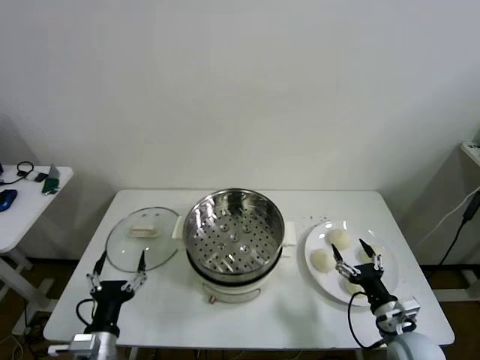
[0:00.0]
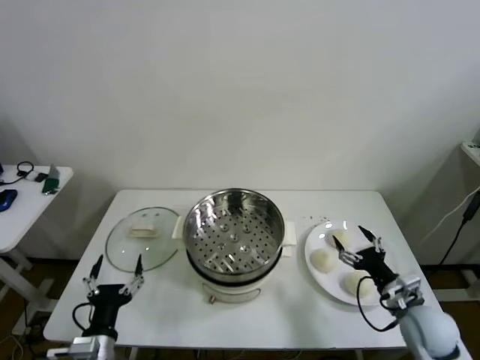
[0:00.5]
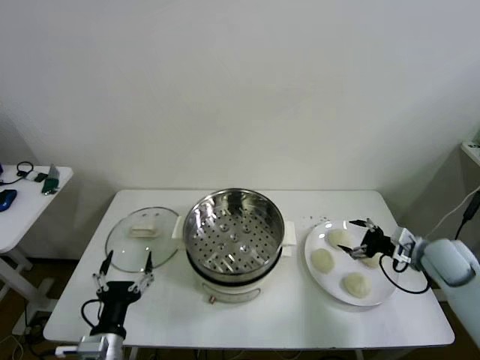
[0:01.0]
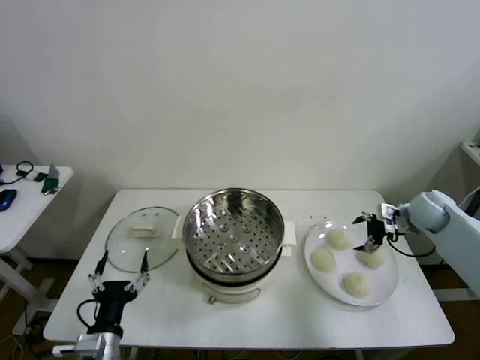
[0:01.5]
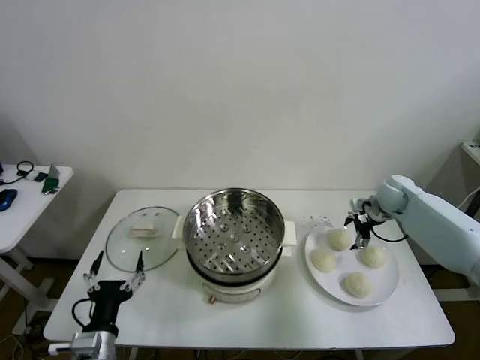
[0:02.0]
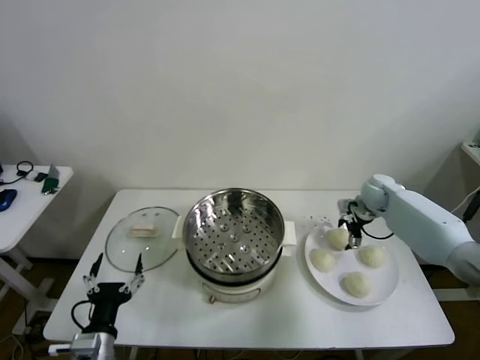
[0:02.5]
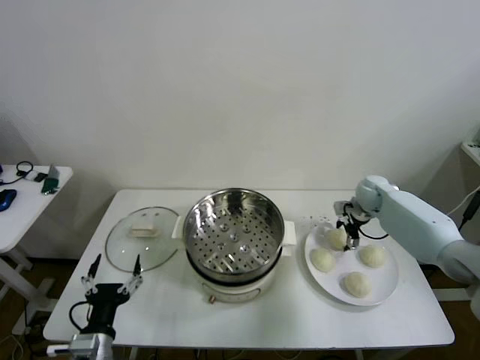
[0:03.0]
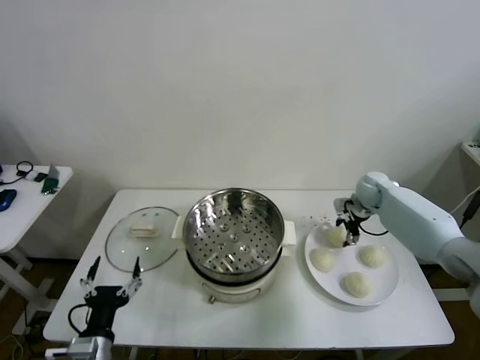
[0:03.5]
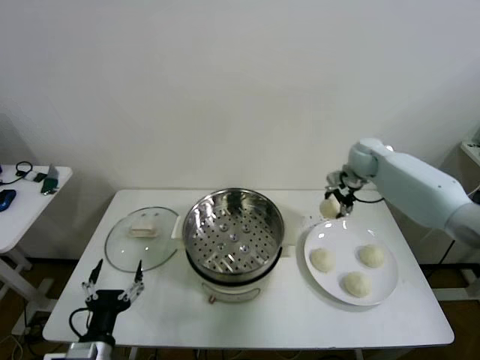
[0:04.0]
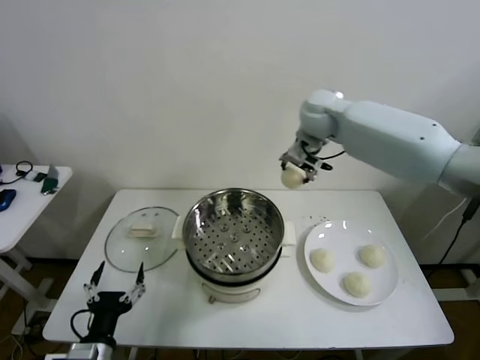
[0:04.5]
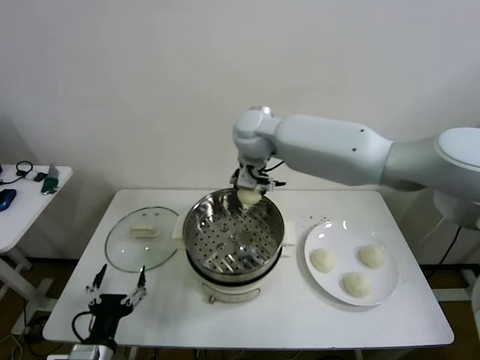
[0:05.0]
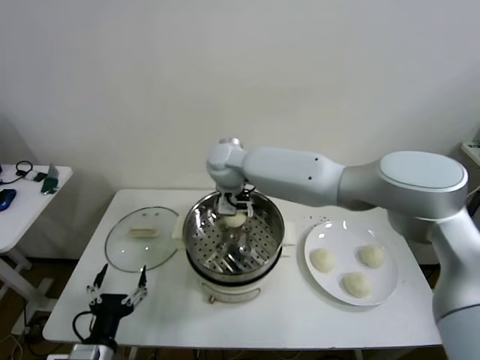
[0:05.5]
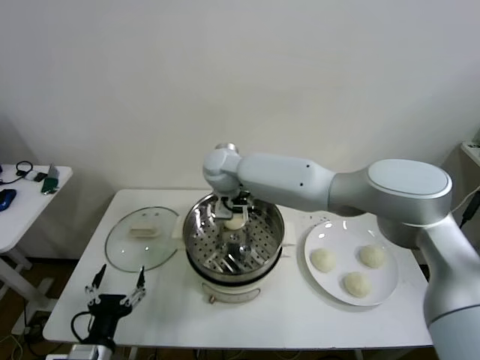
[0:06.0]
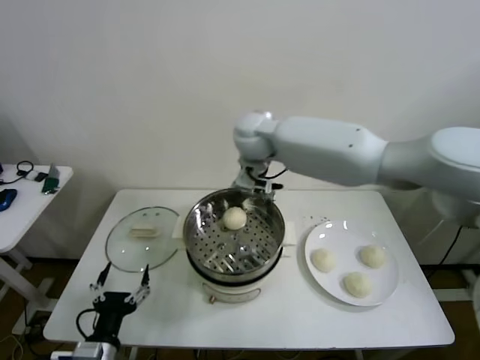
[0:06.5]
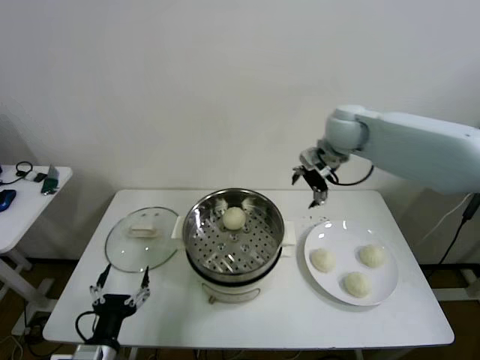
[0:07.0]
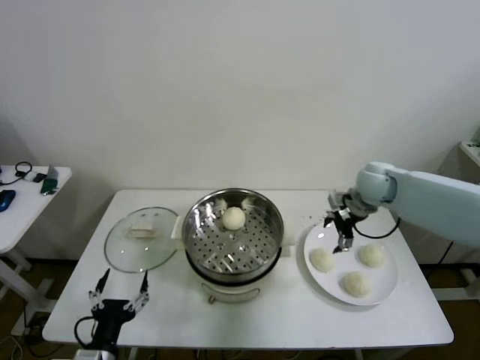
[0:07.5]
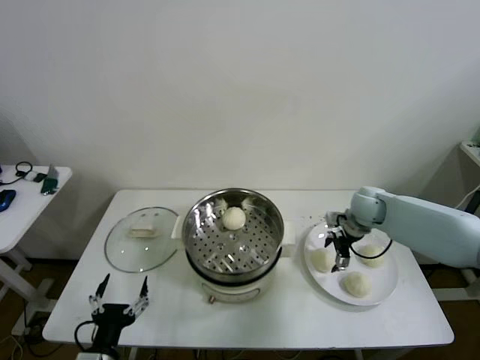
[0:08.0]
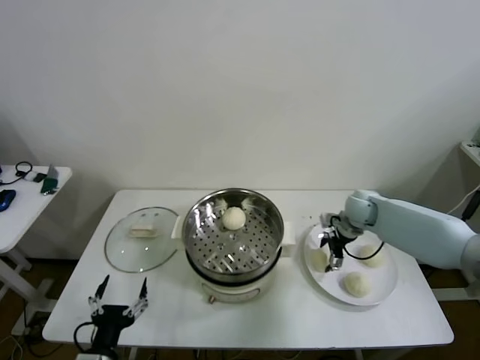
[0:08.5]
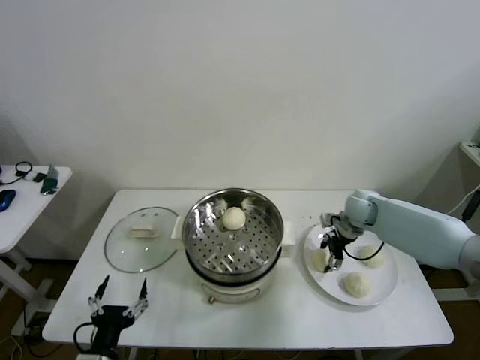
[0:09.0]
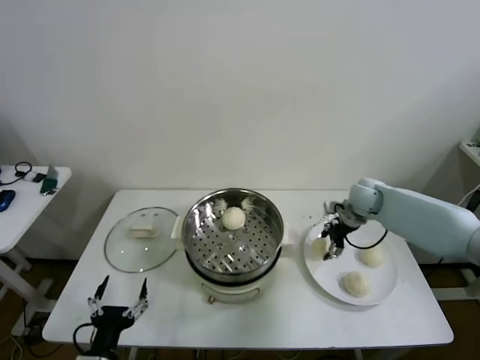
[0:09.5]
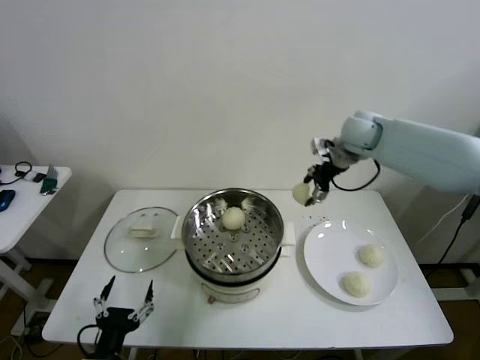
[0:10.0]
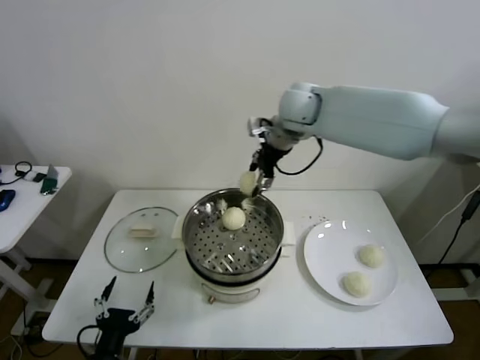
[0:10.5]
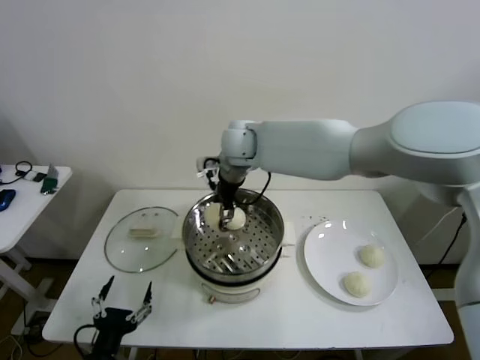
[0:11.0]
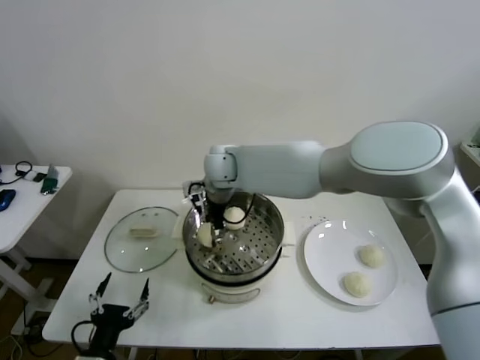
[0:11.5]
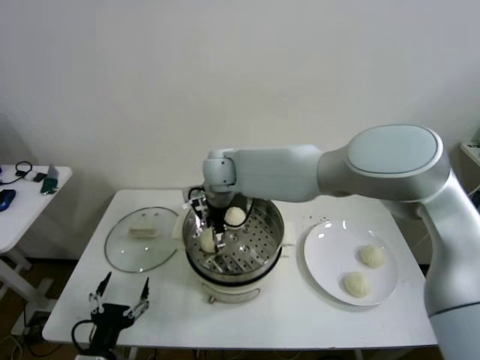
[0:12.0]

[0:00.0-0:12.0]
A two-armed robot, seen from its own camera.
Step, 0:00.0 to 0:03.0: Grasp the baozi in the plate with right gripper.
Step, 0:03.5 to 0:05.5: Place the baozi on the steamer with right gripper.
Step, 0:06.0 to 0:09.0: Grasp the baozi in the plate with right gripper.
Step, 0:09.5 to 0:12.0: Place the baozi on the steamer with right gripper.
0:02.0 to 0:04.0: The right gripper heads upward, to the left and forward, covering roughly 15 cm, and closes its fingers.
0:04.0 to 0:06.0: The right gripper goes roughly 35 cm to the left, and opens its fingers.
0:06.0 to 0:08.0: The right gripper goes some 35 cm to the right.
0:08.0 to 0:10.0: The right gripper heads upward, covering roughly 20 cm, and closes up.
0:10.0 to 0:12.0: The right gripper heads to the left, covering about 30 cm, and opens up.

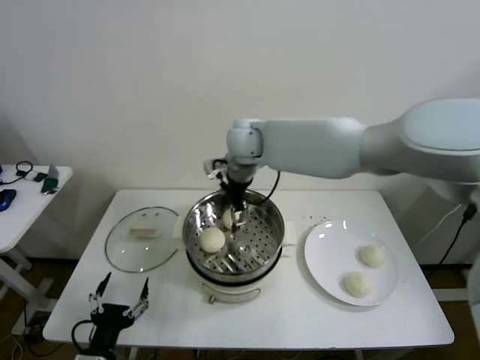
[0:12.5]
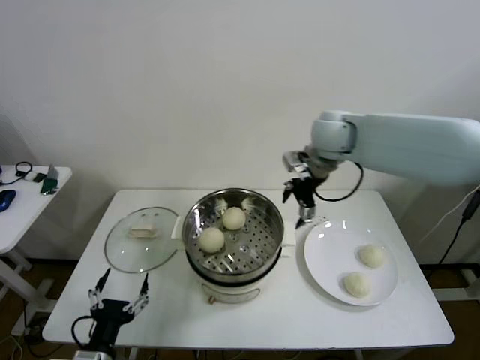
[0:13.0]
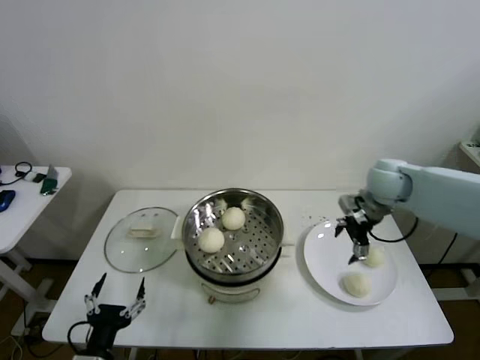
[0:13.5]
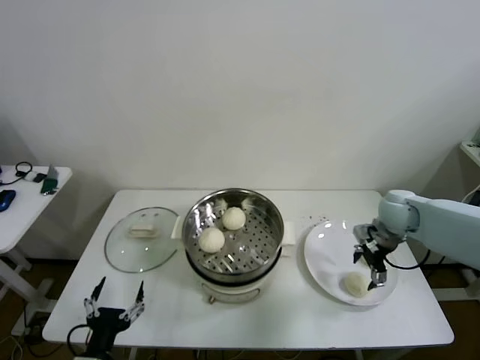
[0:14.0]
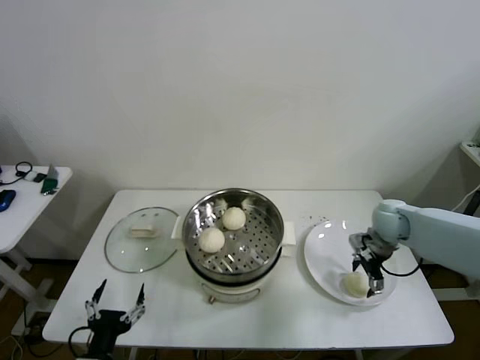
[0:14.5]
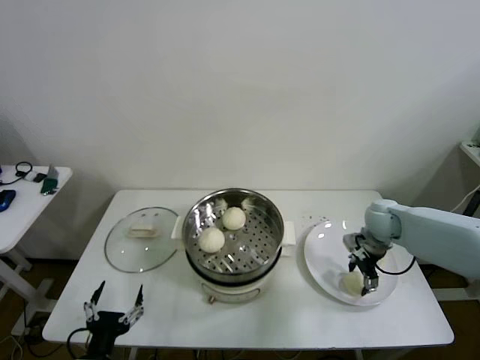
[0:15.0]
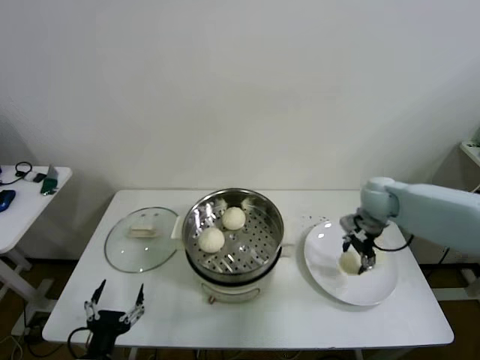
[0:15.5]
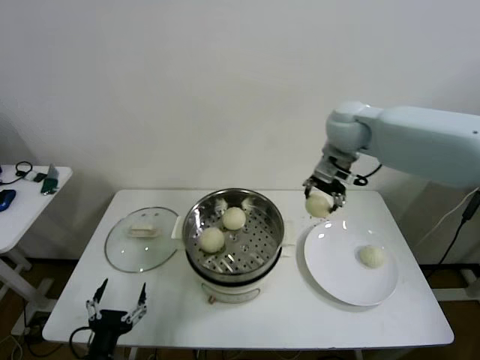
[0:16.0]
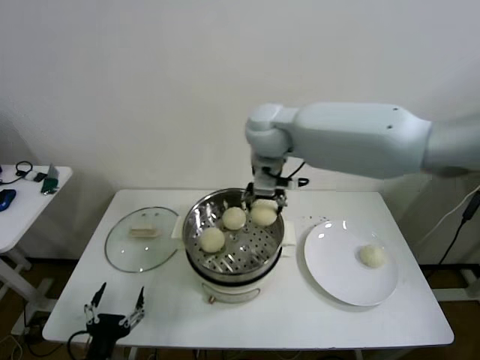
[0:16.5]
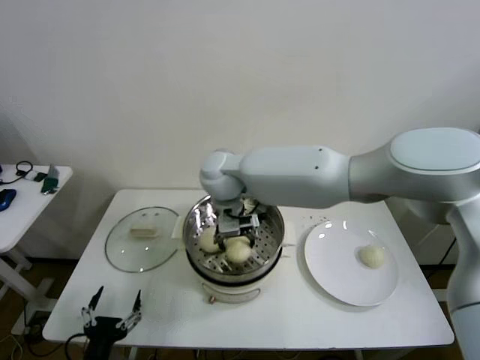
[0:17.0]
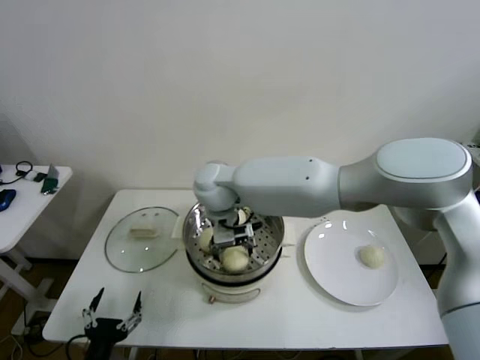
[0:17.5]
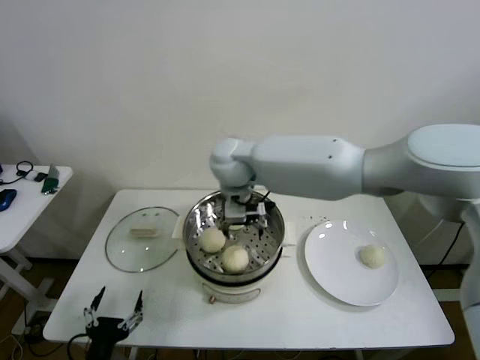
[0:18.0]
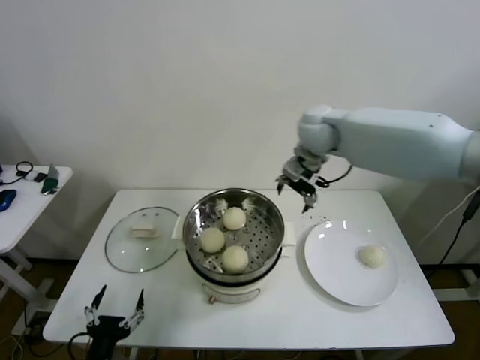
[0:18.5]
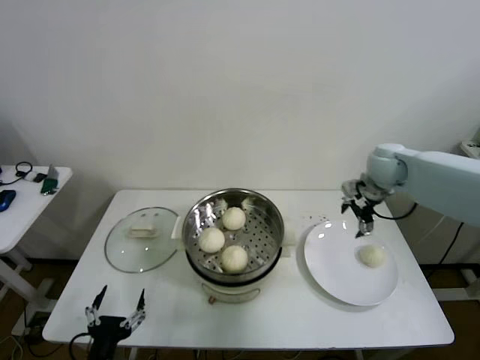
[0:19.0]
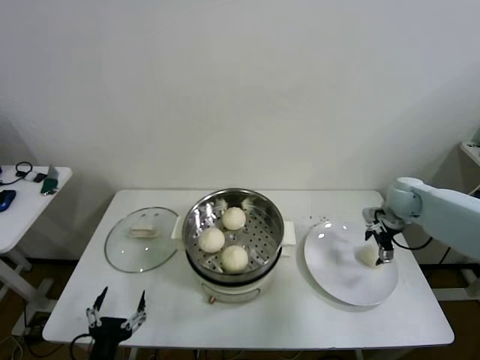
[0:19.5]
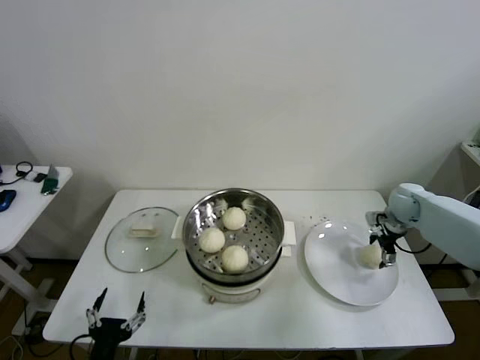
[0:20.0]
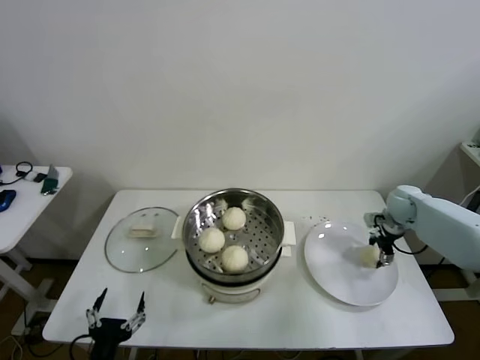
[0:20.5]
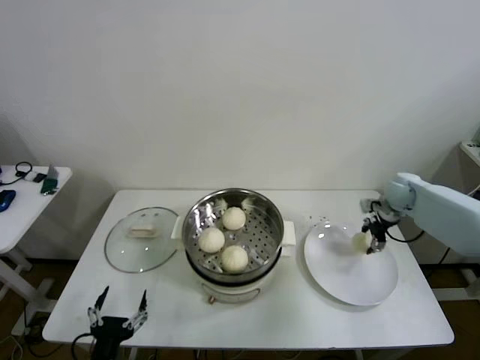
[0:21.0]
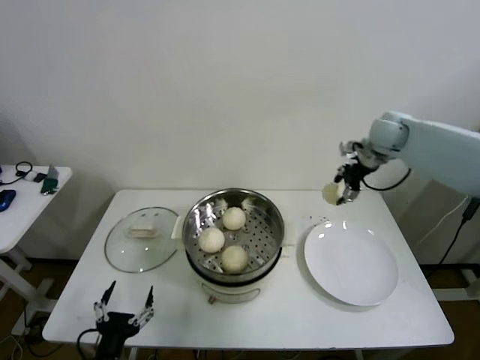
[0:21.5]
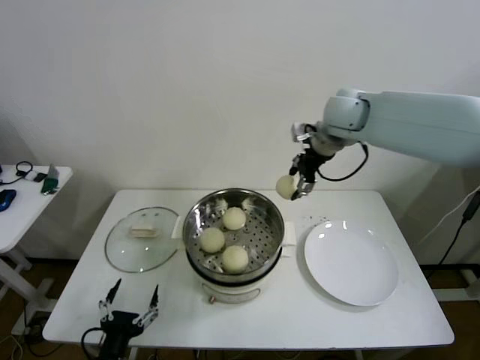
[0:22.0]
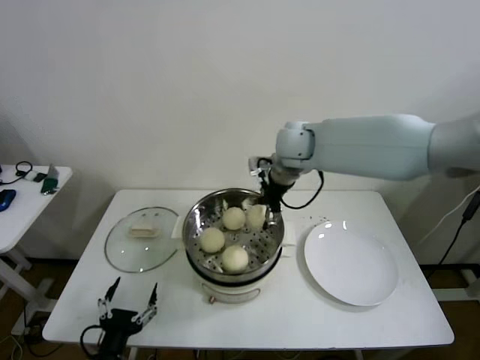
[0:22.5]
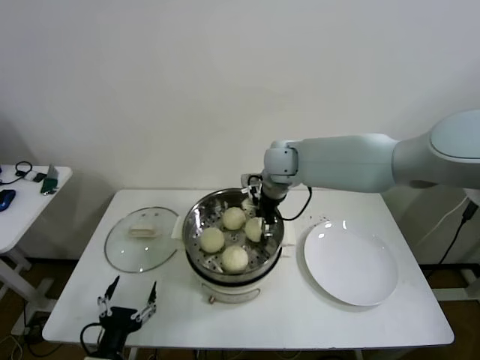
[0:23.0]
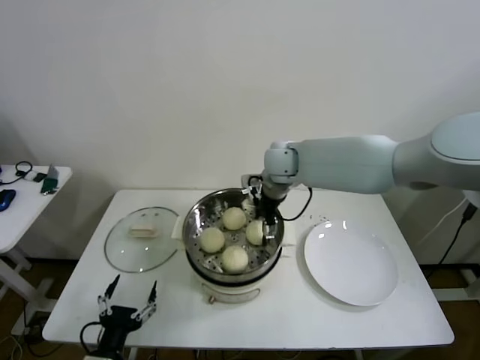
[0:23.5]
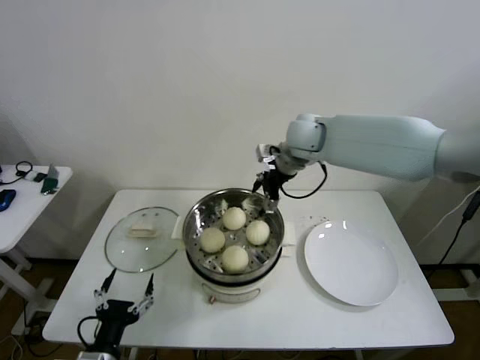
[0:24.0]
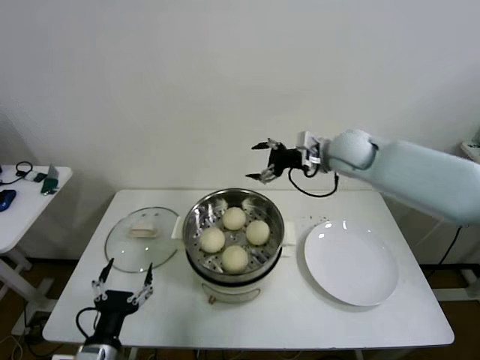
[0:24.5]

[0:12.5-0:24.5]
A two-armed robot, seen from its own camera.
Step, 0:12.5 to 0:15.0: Grasp the baozi in the plate with right gripper.
Step, 0:15.5 to 0:17.5: Place the baozi on the steamer with right gripper.
Step, 0:18.0 to 0:20.5: Grasp the baozi in the plate with right gripper.
Step, 0:21.0 to 0:23.0: Place the baozi on the steamer with right gripper.
0:12.5 to 0:14.5: The right gripper travels to the right and downward by roughly 40 cm.
0:14.5 to 0:16.5: The right gripper is displaced to the left and upward by roughly 40 cm, and closes.
0:16.5 to 0:18.5: The right gripper heads to the right, covering about 15 cm, and opens up.
0:18.5 to 0:20.5: The right gripper travels to the right and downward by about 35 cm, and closes.
0:20.5 to 0:22.5: The right gripper moves to the left and upward, approximately 40 cm.
0:22.5 to 0:24.5: The right gripper is displaced to the right by about 10 cm, and opens its fingers.

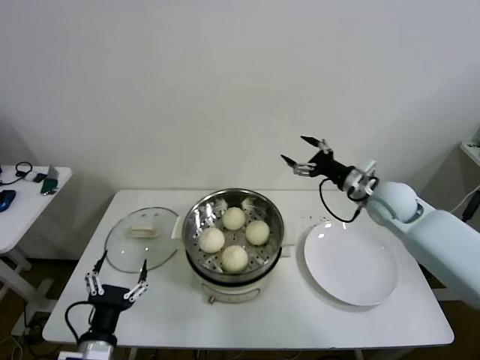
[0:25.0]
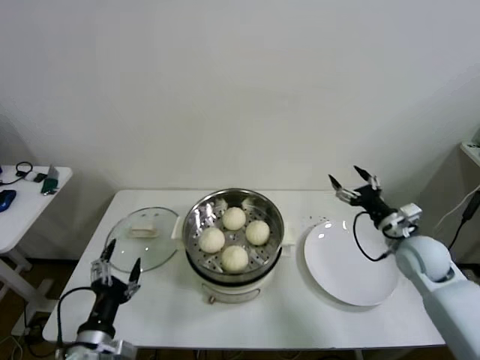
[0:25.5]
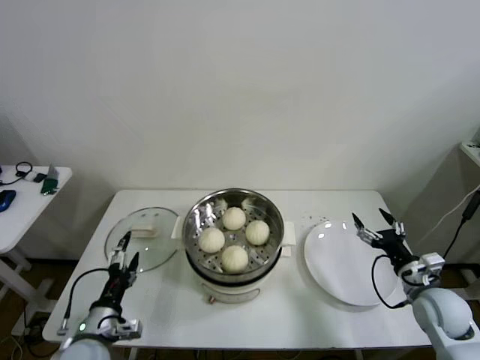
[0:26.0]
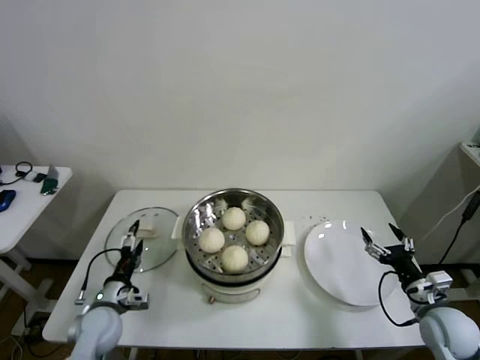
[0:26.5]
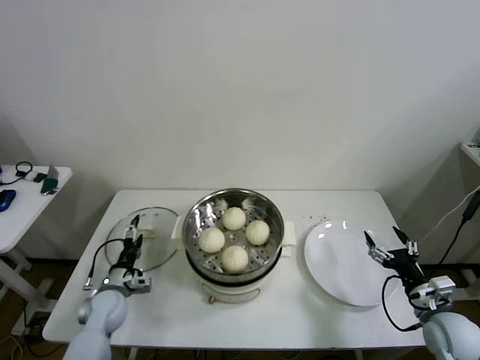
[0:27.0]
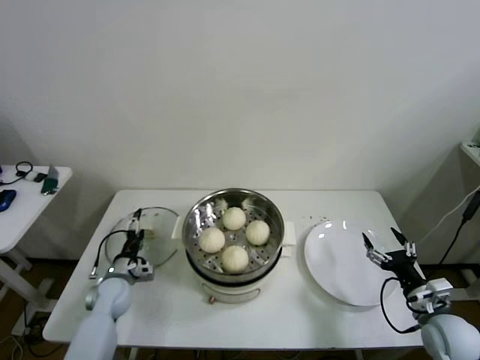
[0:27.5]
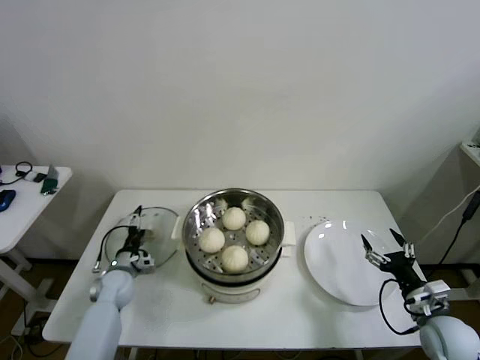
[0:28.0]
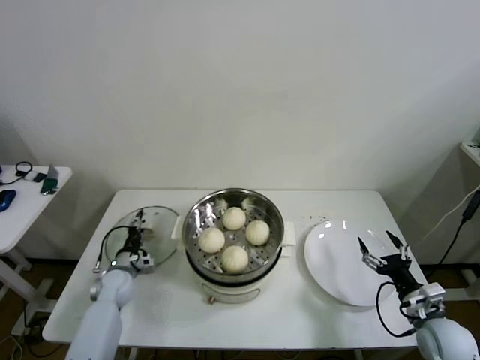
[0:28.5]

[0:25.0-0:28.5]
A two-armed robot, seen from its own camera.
0:25.0 to 0:27.0: The left gripper travels forward and downward by approximately 25 cm. The right gripper goes approximately 30 cm backward, downward and to the right.
0:27.0 to 0:28.5: The left gripper shifts roughly 5 cm forward, and closes its fingers.
